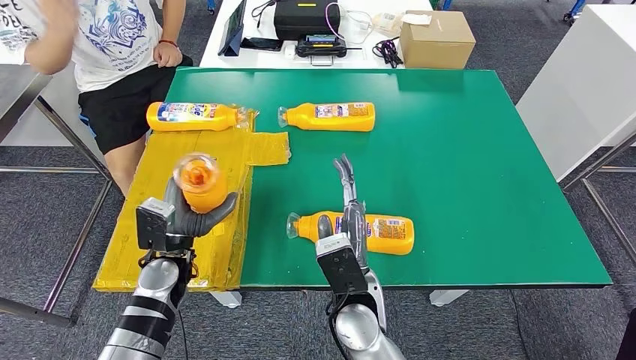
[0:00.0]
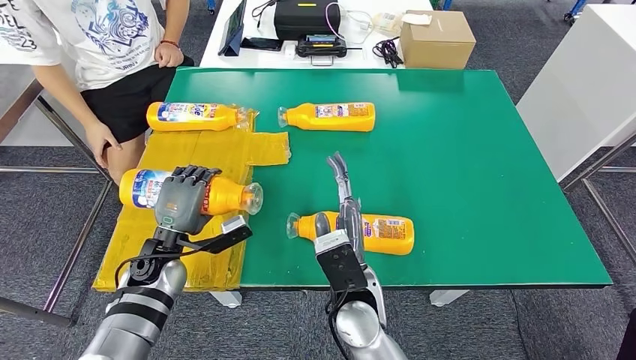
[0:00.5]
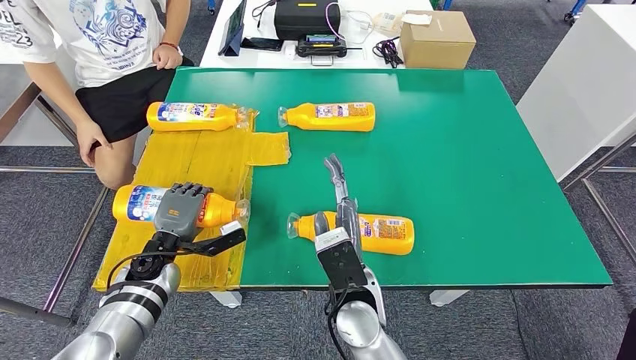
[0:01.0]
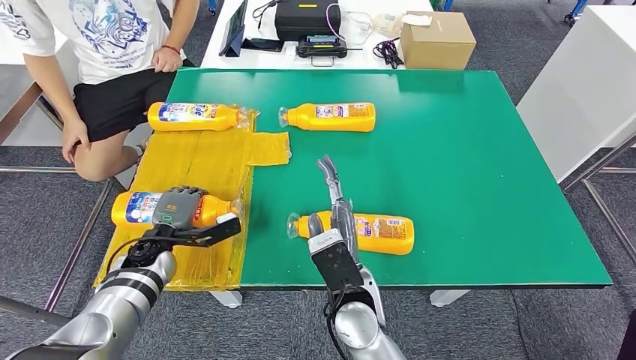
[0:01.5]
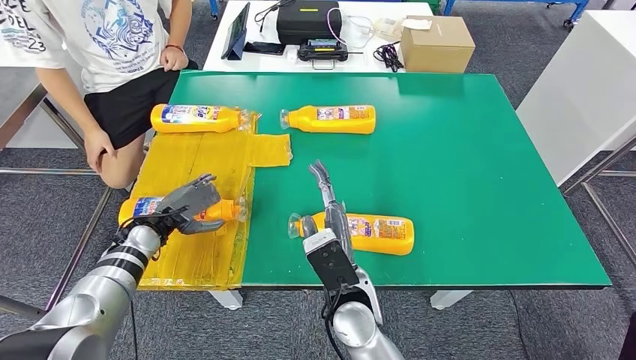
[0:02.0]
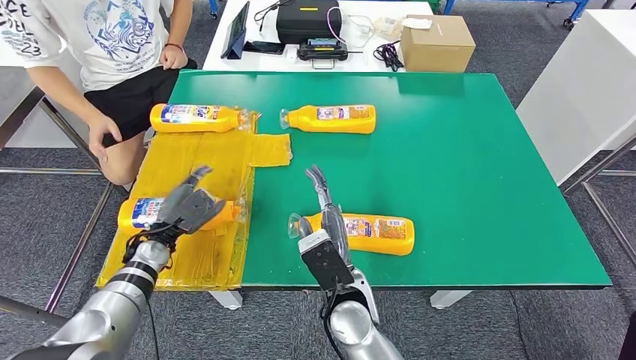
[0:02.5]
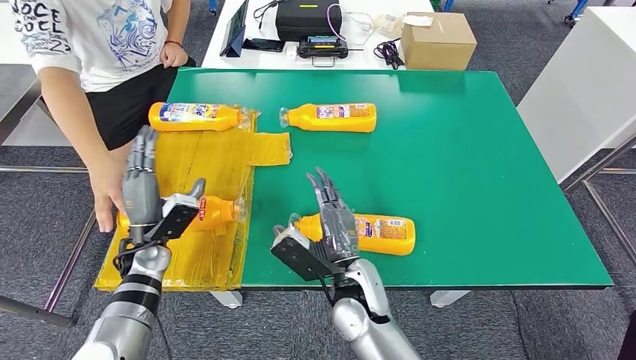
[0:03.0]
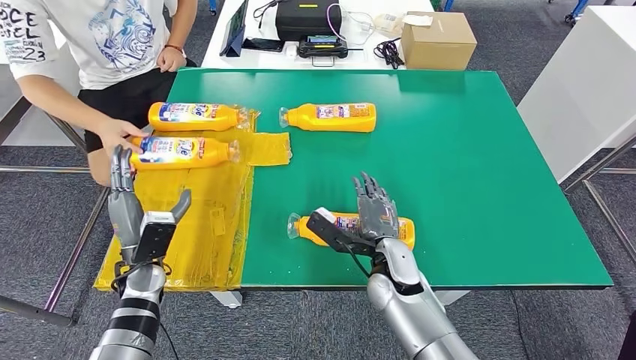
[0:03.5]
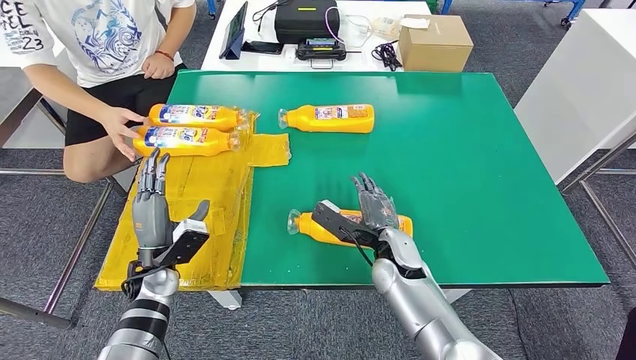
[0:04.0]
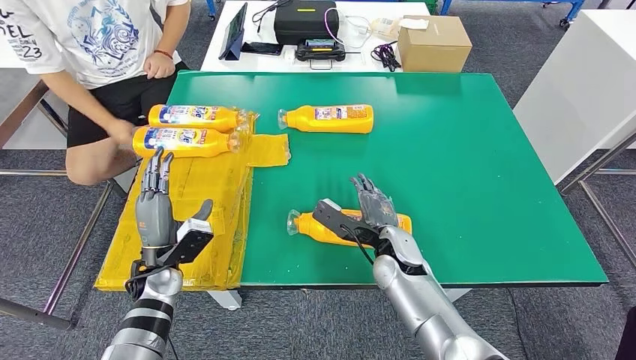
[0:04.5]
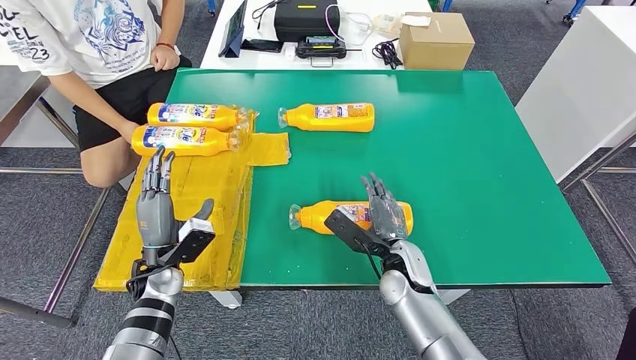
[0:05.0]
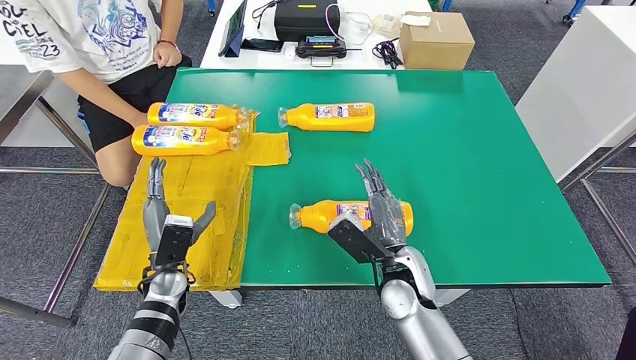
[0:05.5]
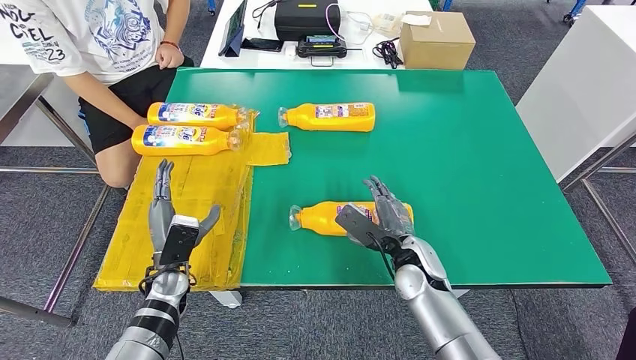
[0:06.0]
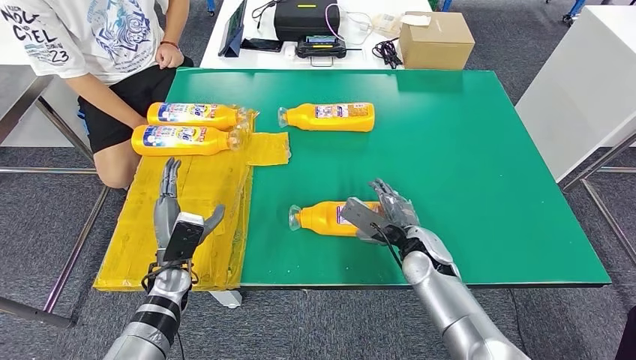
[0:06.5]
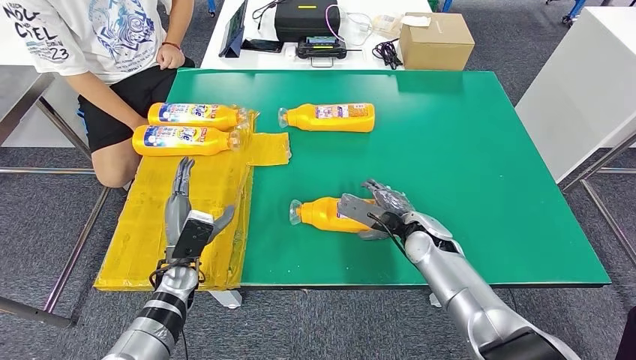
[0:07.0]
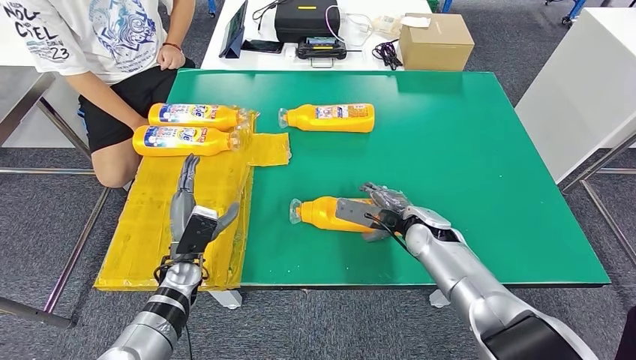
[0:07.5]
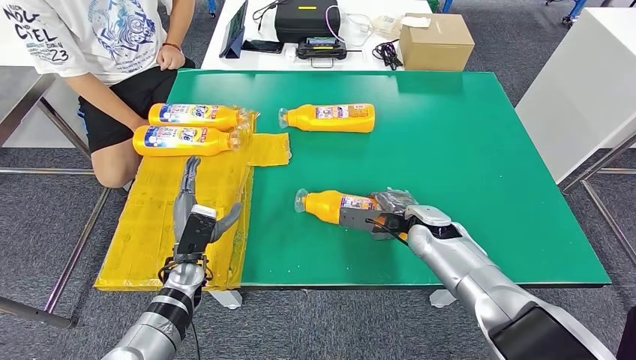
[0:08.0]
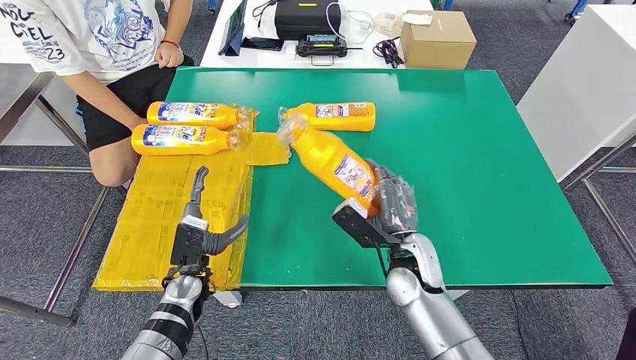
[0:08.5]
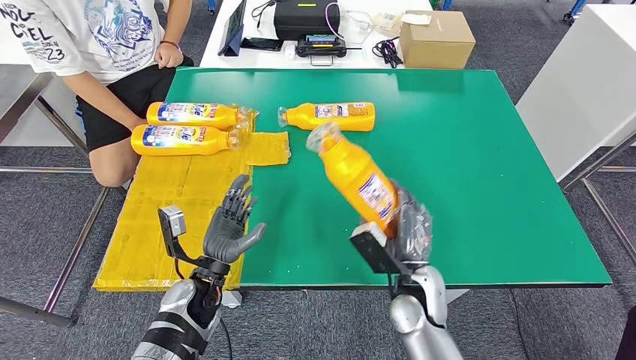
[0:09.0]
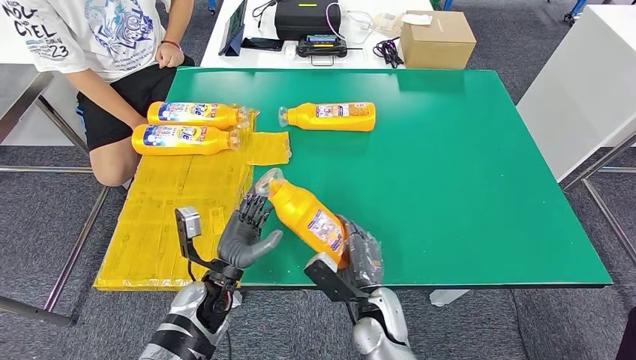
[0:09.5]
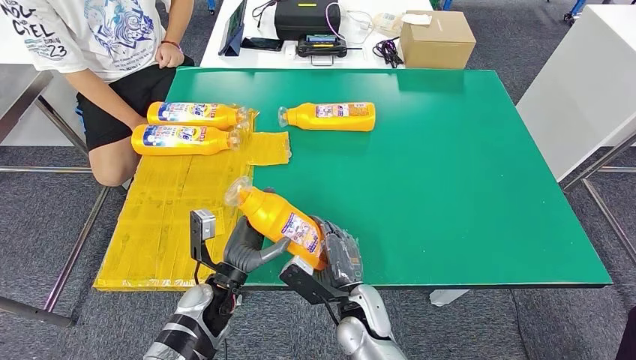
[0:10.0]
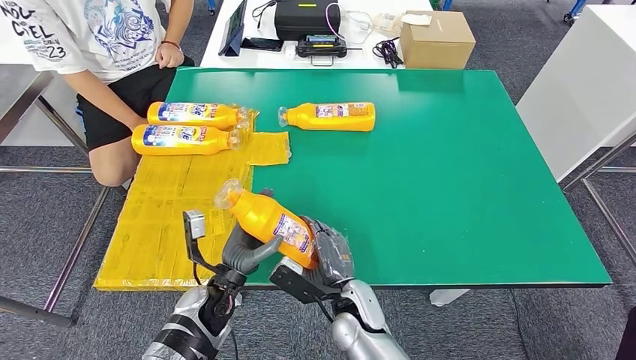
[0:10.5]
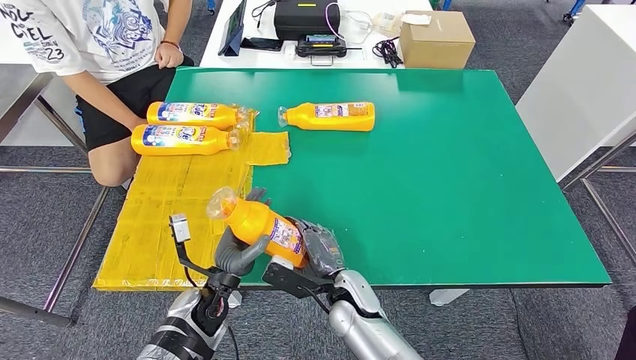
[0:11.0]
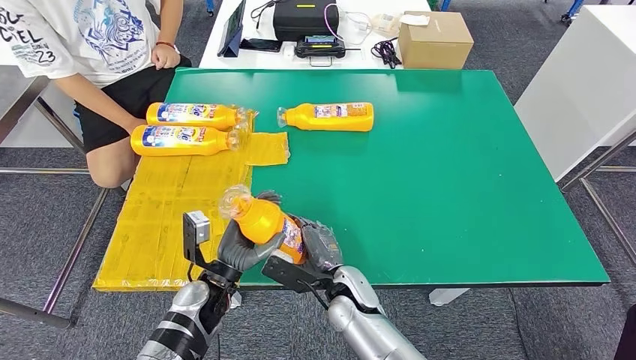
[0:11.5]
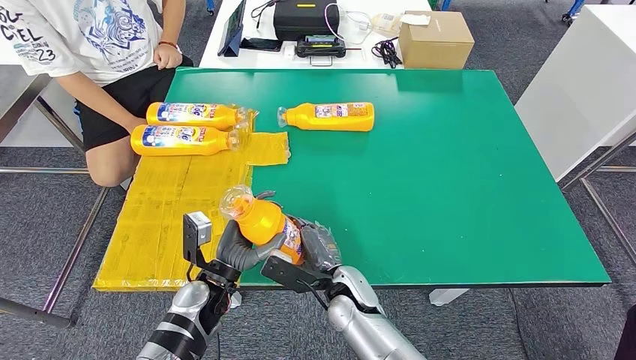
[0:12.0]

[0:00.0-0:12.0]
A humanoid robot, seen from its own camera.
Step, 0:00.0 to 0:03.0: Flip the fast-moving consumer goods bottle to the front side.
Step, 0:03.5 to 0:10.0: Pick up the fast-moving consumer goods bottle from the table.
0:06.0 to 0:08.0: The right hand travels forward by roughly 5 cm.

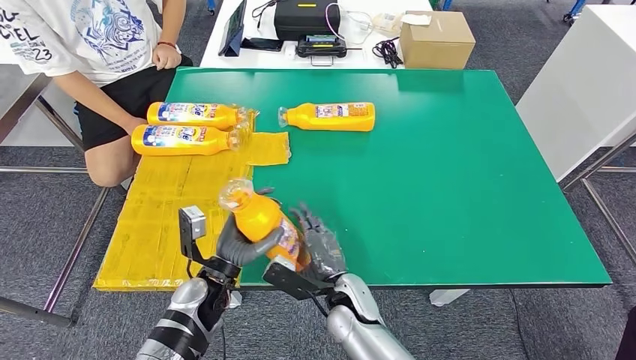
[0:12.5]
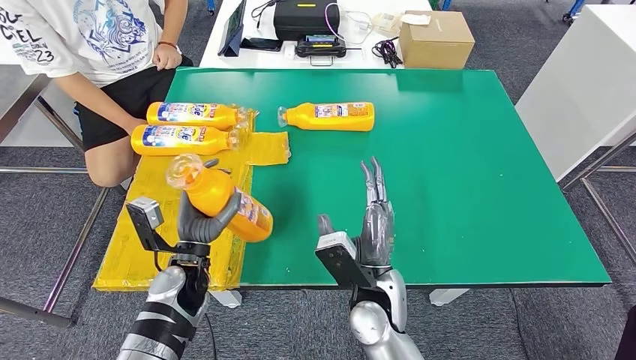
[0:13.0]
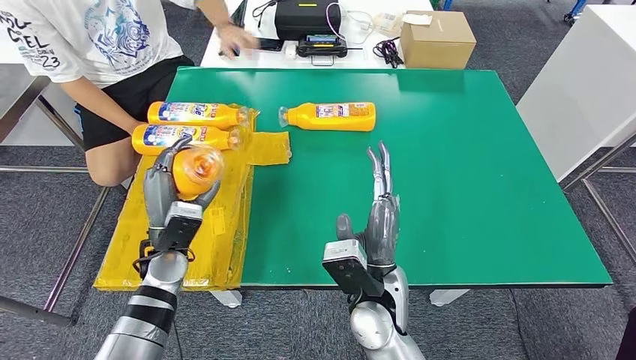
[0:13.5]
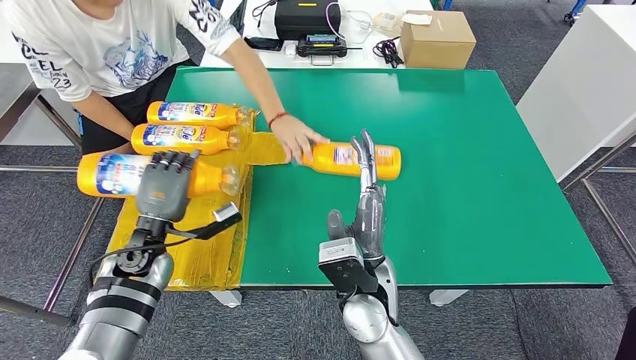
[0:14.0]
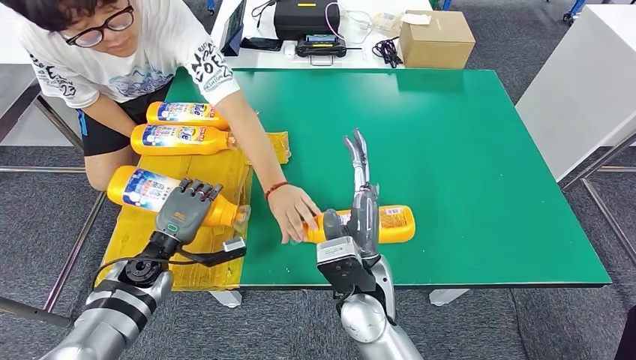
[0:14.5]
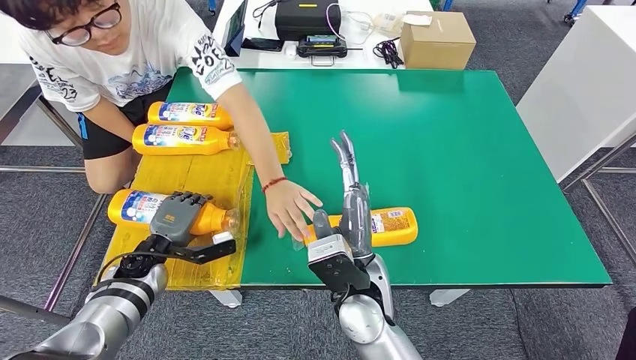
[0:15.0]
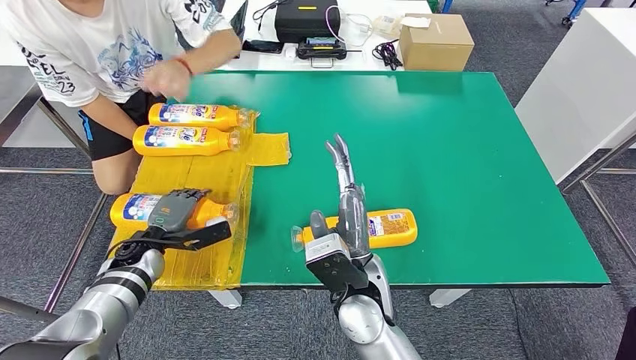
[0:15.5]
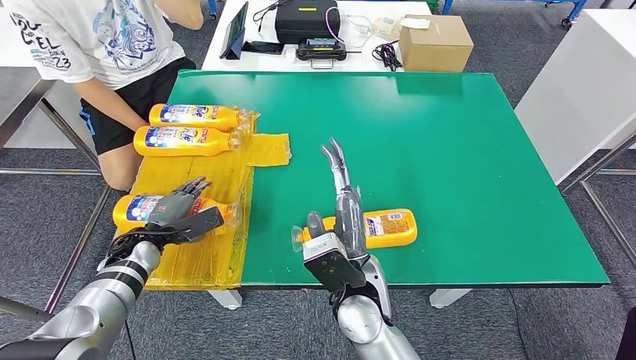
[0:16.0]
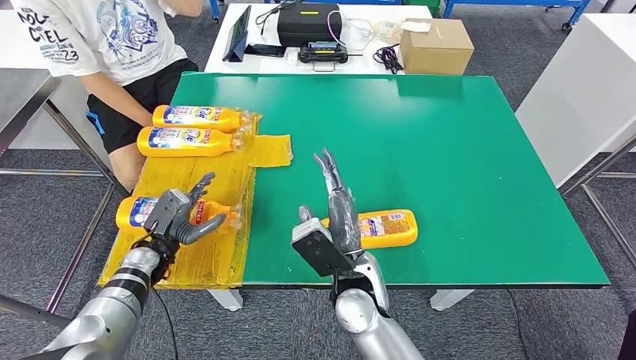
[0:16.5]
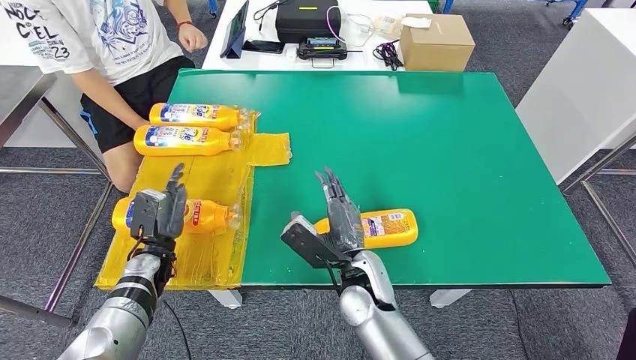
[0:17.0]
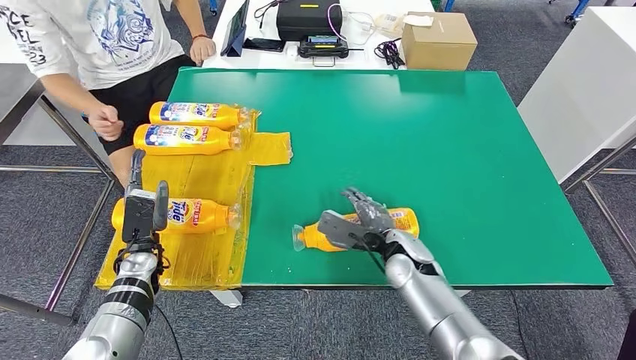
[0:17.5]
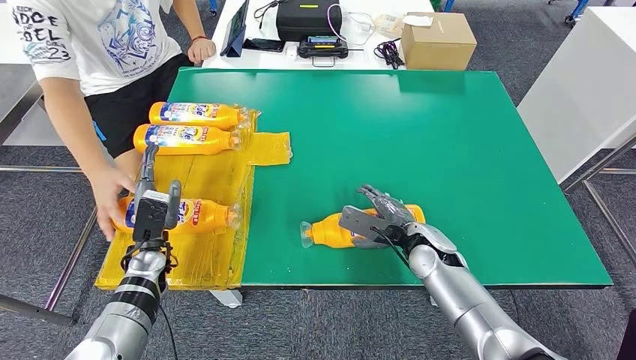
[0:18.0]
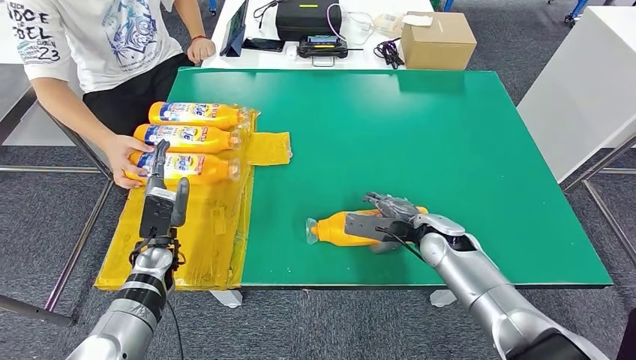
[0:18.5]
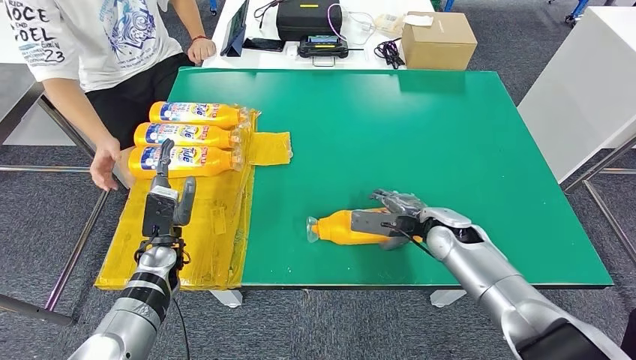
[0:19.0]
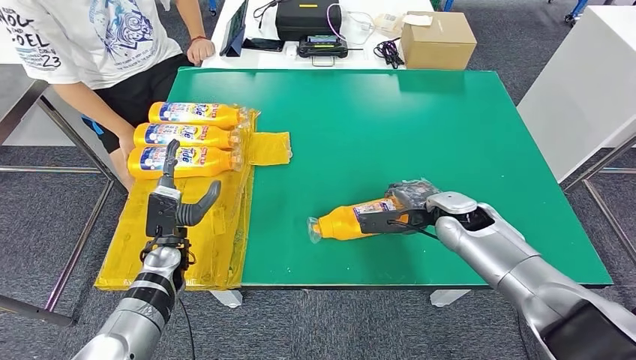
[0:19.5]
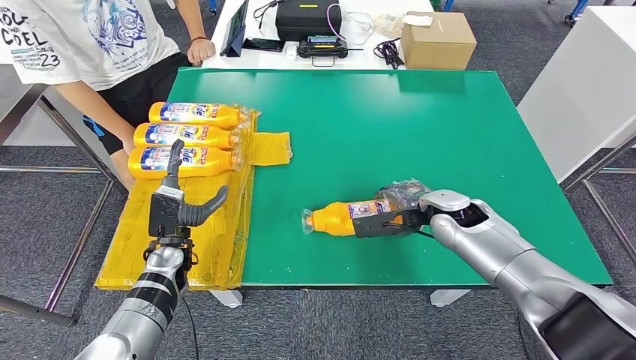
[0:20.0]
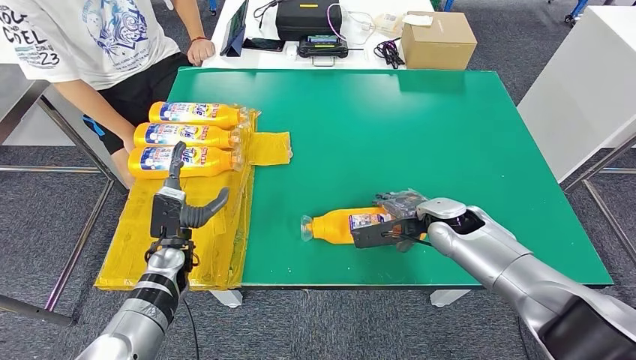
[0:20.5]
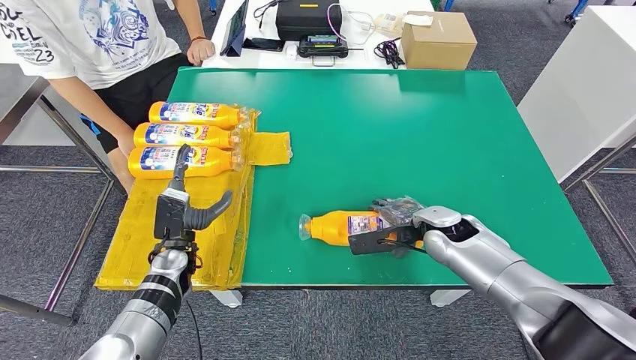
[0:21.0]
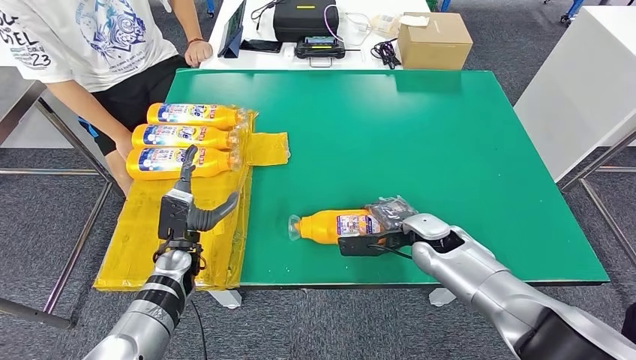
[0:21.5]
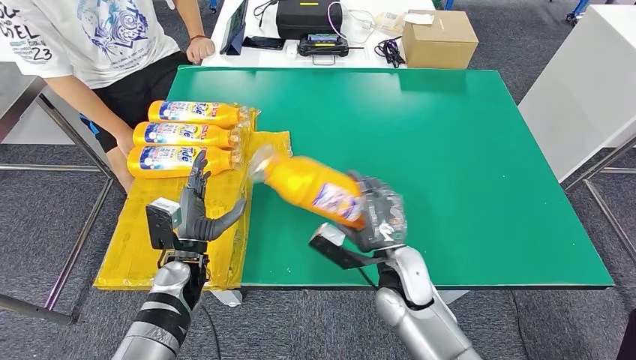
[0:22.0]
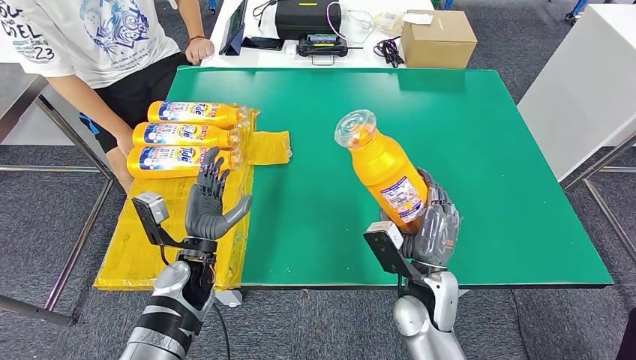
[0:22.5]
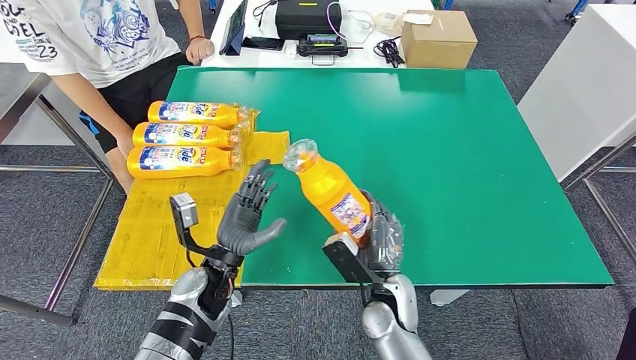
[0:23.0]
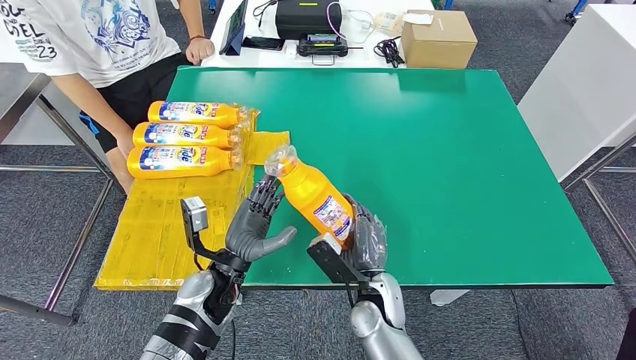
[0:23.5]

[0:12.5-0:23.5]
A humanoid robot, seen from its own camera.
Step, 0:12.5 to 0:16.5: Flip the fast-moving consumer goods bottle to the front side.
Step, 0:17.0 to 0:23.0: Pick up the fast-moving consumer goods bottle from the table.
